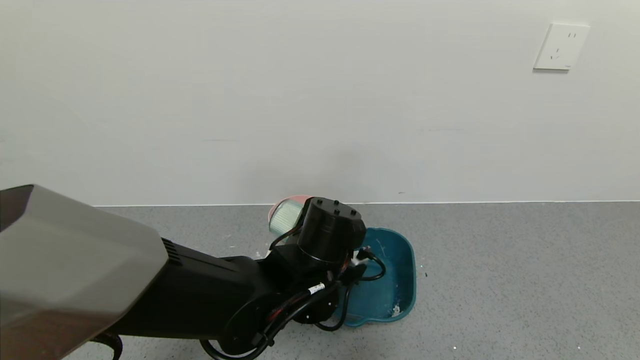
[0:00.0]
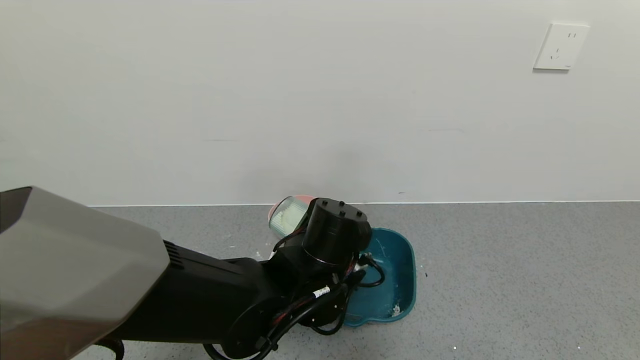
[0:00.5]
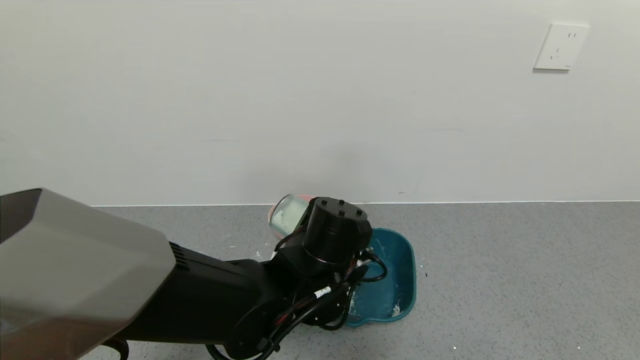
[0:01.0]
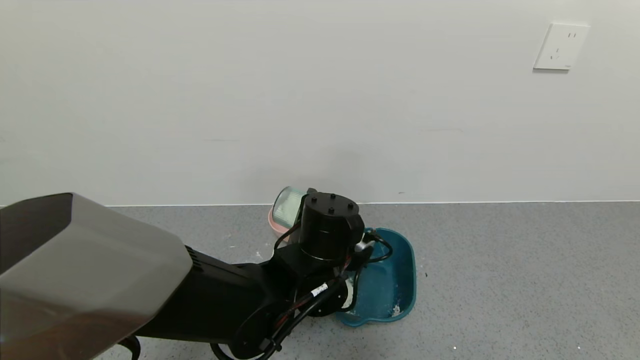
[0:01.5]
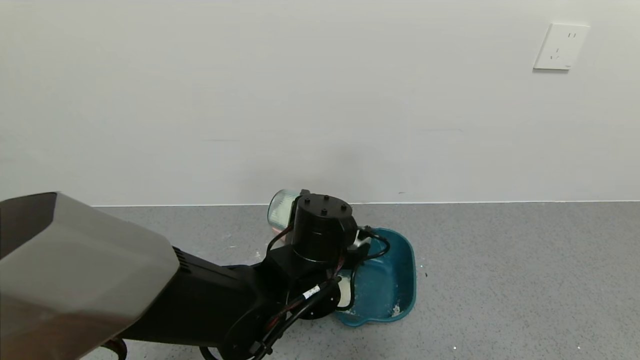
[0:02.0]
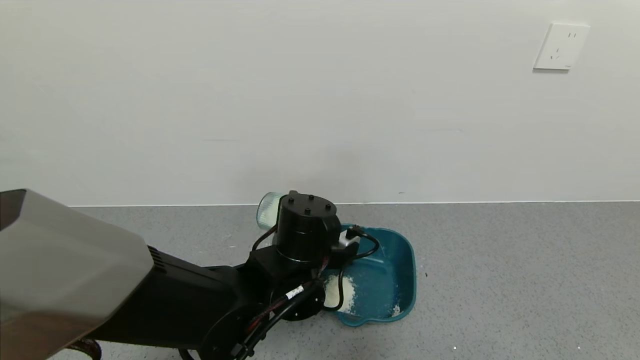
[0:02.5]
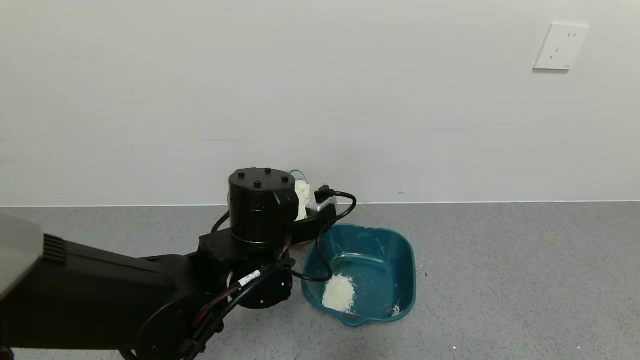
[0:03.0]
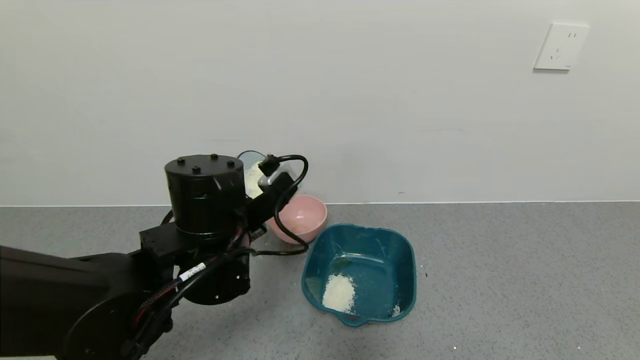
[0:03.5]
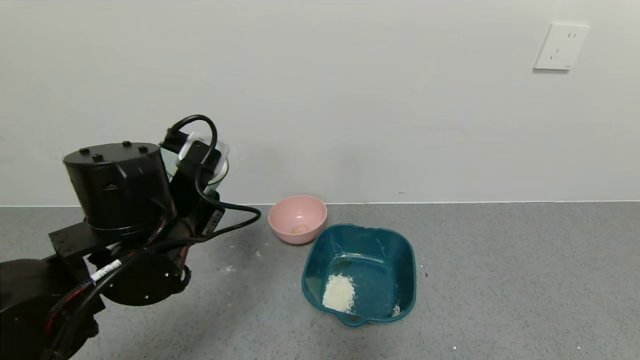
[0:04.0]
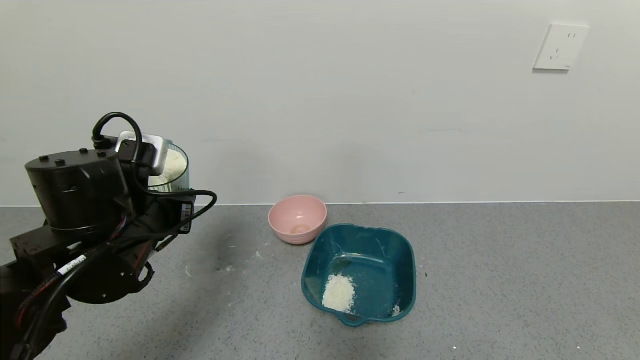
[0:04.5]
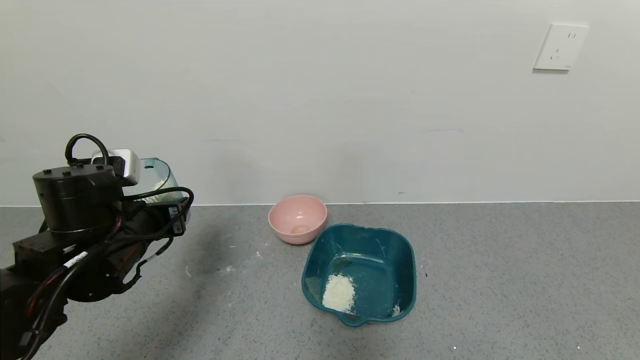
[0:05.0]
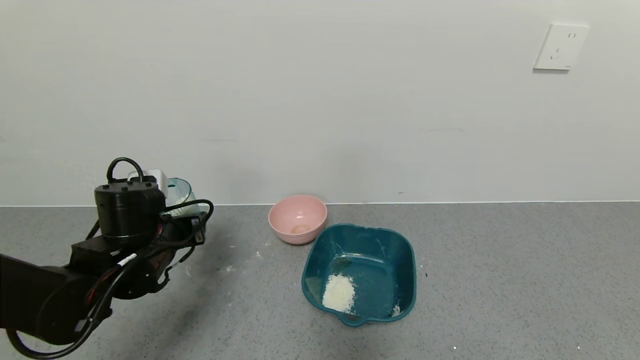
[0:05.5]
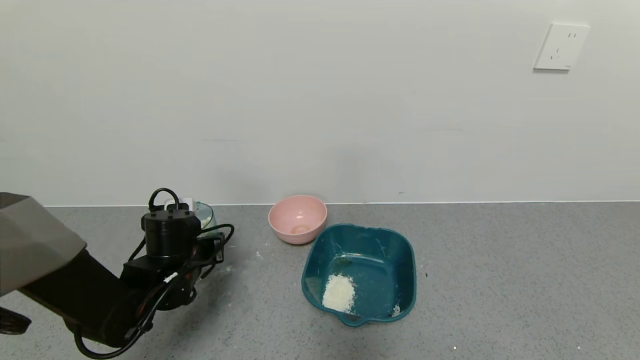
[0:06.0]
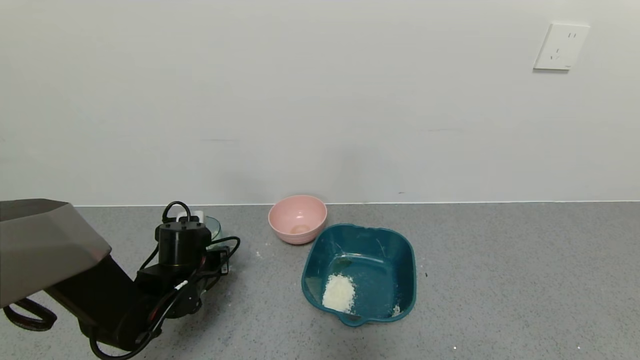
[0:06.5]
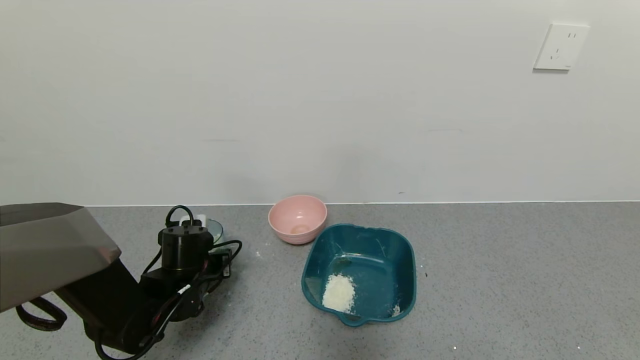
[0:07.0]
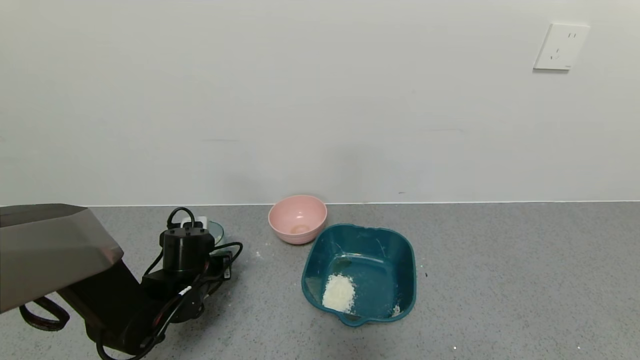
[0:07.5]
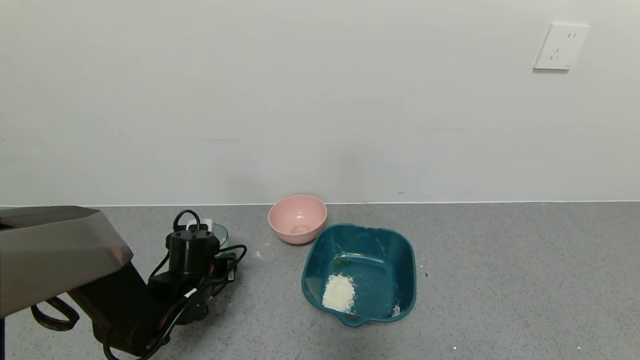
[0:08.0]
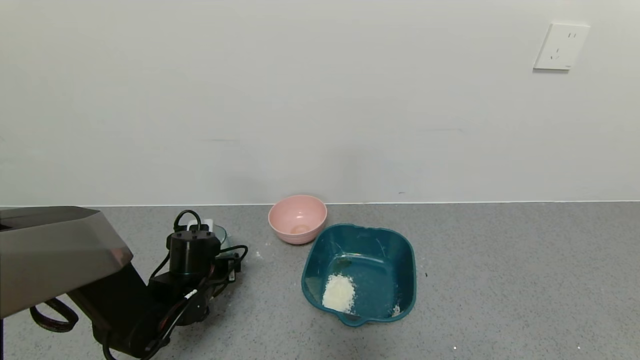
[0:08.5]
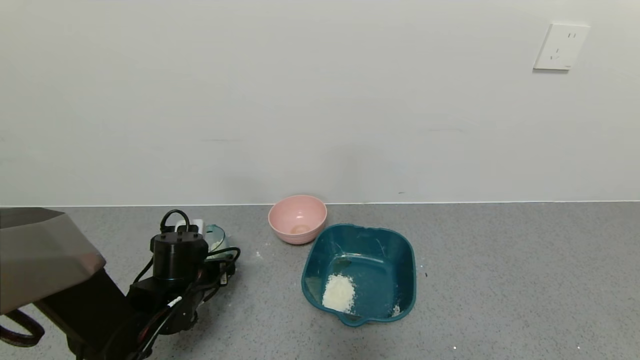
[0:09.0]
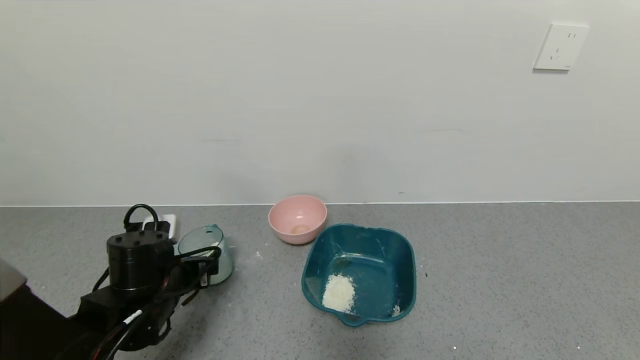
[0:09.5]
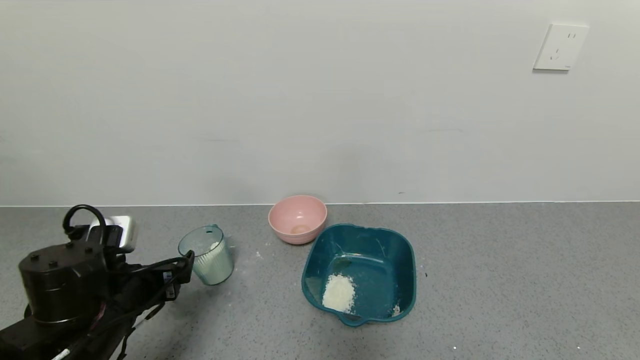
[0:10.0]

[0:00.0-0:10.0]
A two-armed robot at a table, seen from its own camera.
Task of the whole recording: use a gripper to pick up the cup and pour the powder into a bowl or tray.
Step, 0:01.5 to 0:08.0: Place blue cup with milk powder on the table with left gripper.
0:00.0 to 0:02.0: The grippers move only a little.
0:02.0 to 0:04.0: The left gripper heads to the left and upward, covering roughly 15 cm.
0:04.0 to 0:06.0: The left gripper heads downward, forward and to the left, covering some 15 cm.
0:06.0 to 0:08.0: The grippers move only a little.
0:08.0 to 0:10.0: The left gripper is displaced backward and upward by about 15 cm, and opens up.

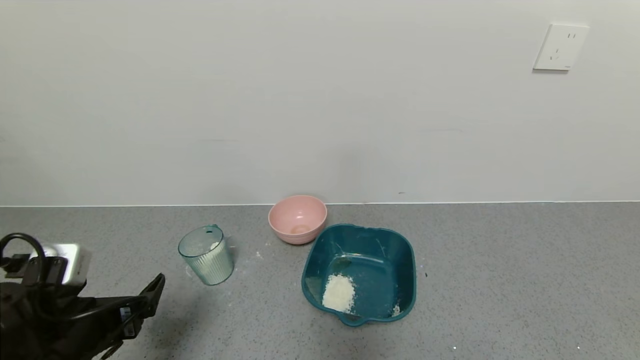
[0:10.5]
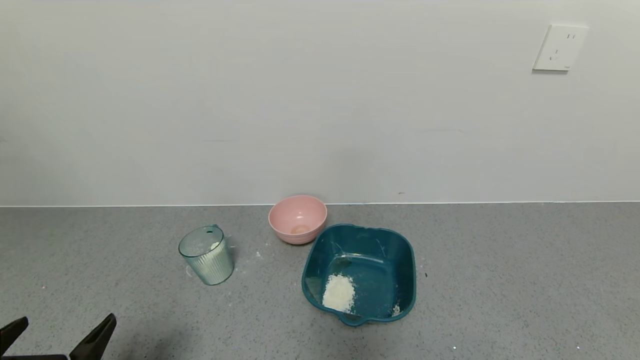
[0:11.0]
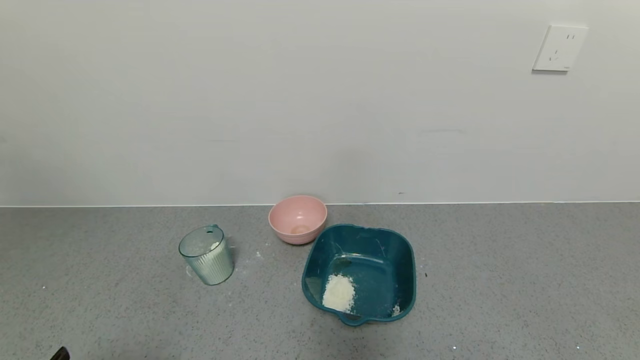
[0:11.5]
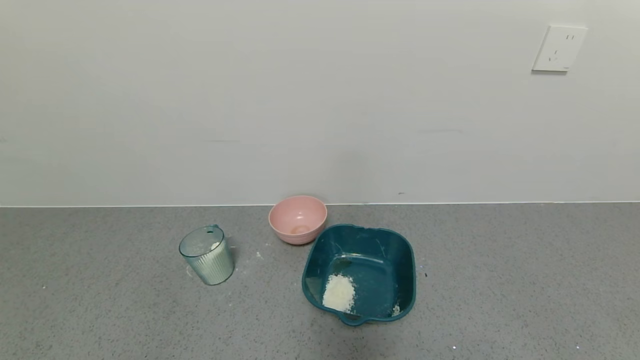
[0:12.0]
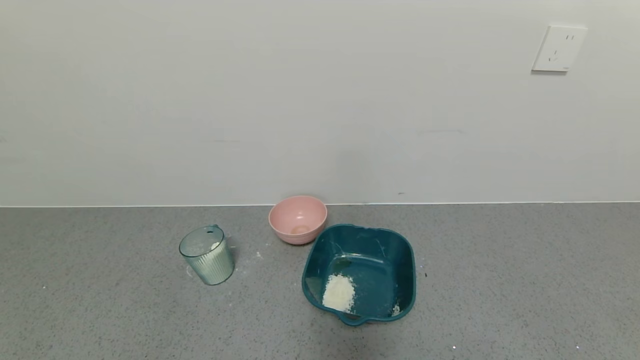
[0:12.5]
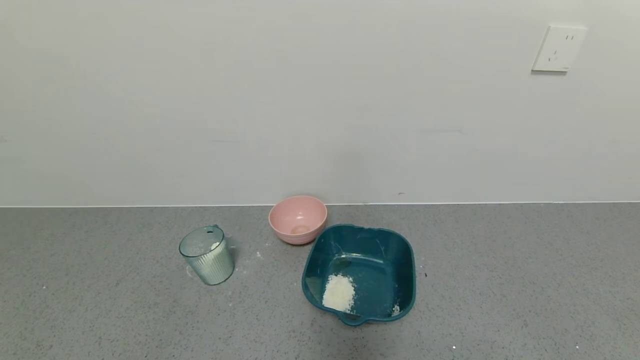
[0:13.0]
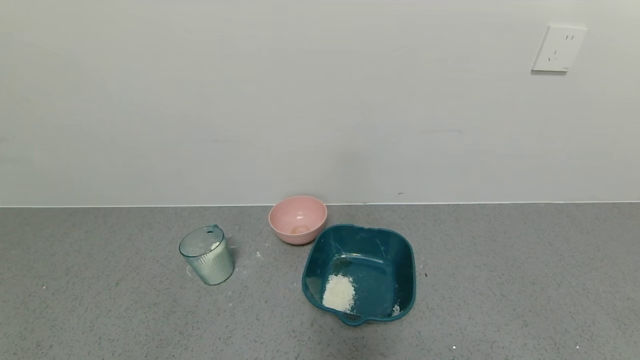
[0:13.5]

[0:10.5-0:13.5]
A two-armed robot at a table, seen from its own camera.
Task of the whole recording: use a gripper to pick up the cup and pour the powder into a bowl or tray.
0:10.5 to 0:12.0: The left gripper goes roughly 15 cm backward.
